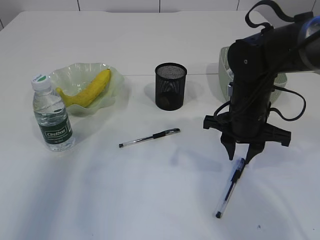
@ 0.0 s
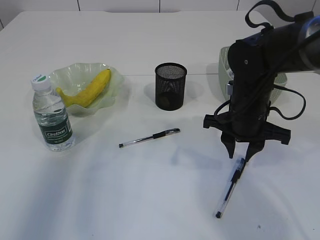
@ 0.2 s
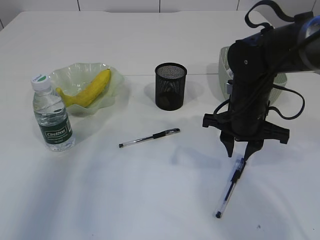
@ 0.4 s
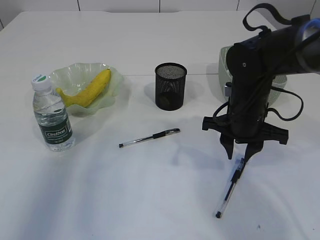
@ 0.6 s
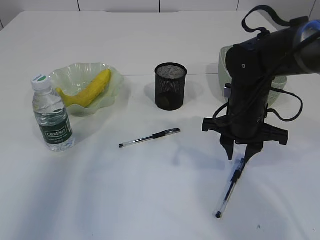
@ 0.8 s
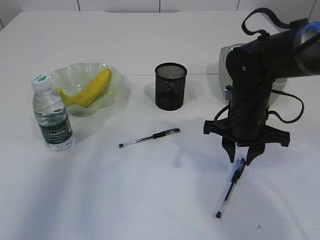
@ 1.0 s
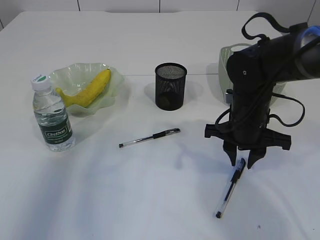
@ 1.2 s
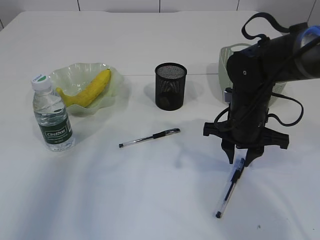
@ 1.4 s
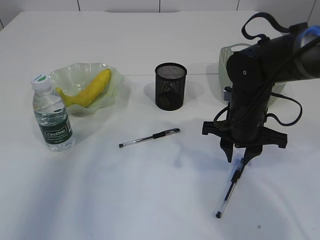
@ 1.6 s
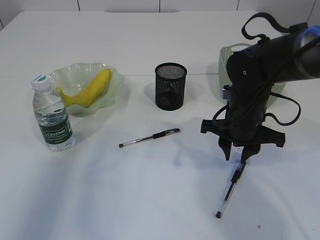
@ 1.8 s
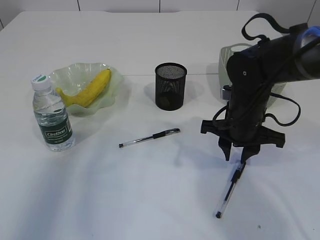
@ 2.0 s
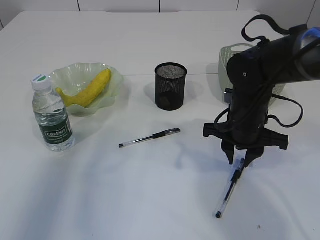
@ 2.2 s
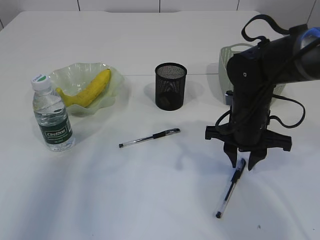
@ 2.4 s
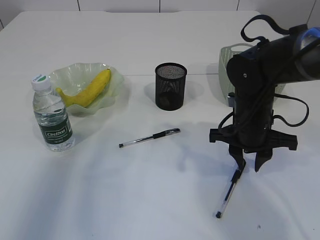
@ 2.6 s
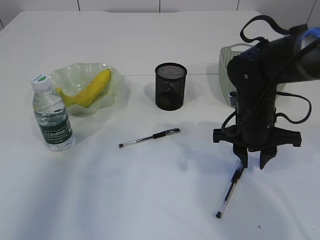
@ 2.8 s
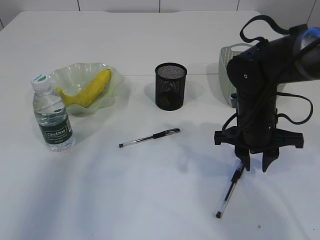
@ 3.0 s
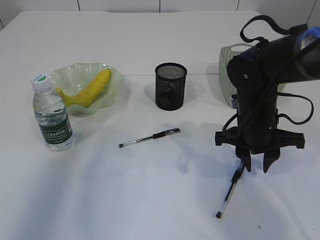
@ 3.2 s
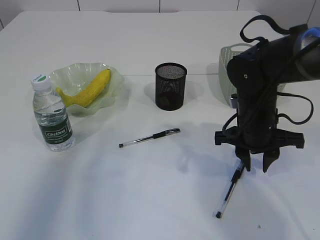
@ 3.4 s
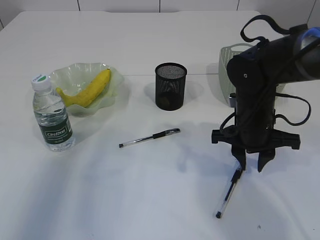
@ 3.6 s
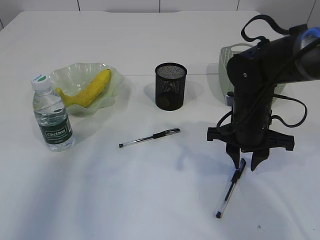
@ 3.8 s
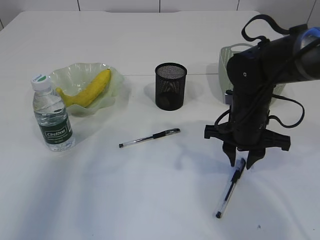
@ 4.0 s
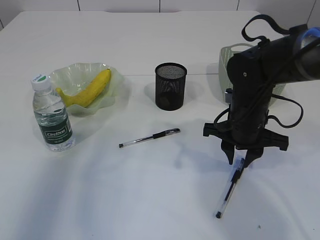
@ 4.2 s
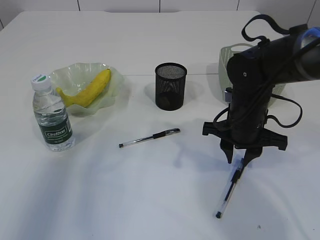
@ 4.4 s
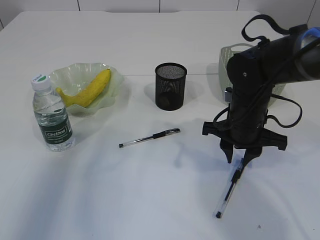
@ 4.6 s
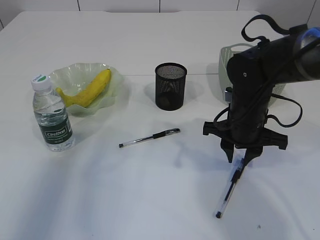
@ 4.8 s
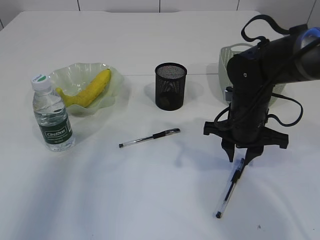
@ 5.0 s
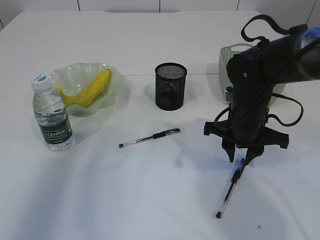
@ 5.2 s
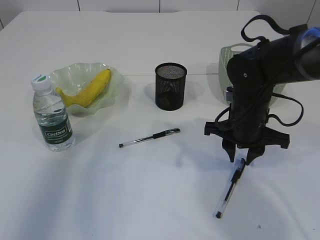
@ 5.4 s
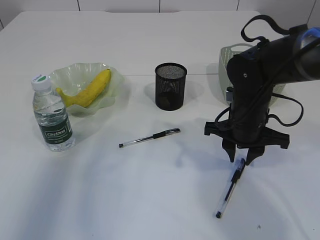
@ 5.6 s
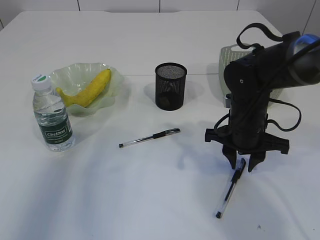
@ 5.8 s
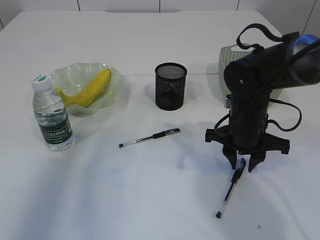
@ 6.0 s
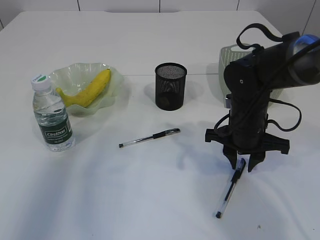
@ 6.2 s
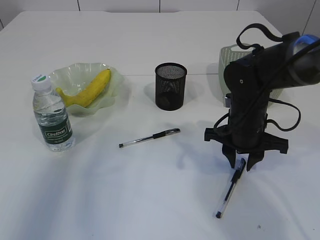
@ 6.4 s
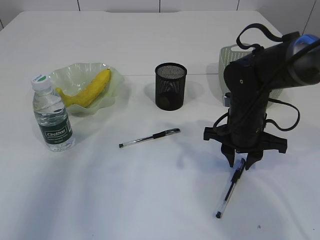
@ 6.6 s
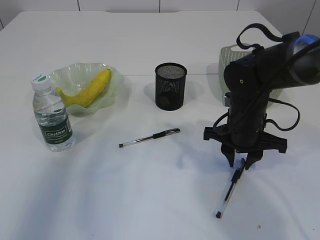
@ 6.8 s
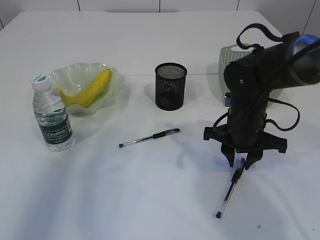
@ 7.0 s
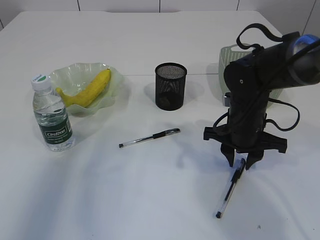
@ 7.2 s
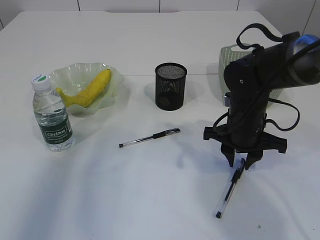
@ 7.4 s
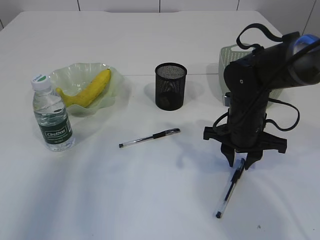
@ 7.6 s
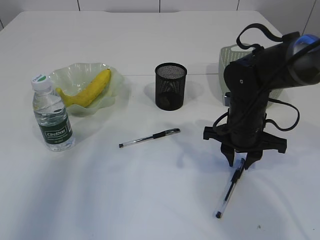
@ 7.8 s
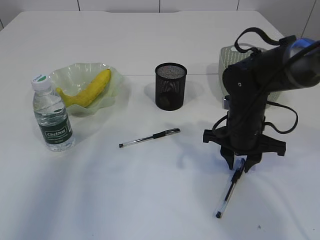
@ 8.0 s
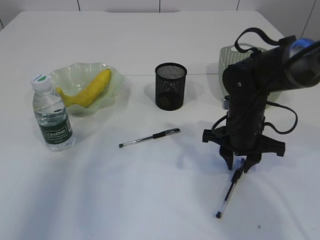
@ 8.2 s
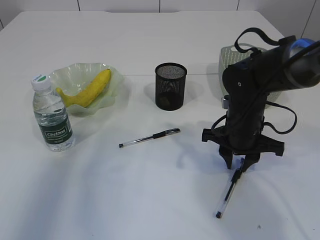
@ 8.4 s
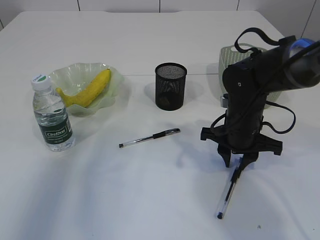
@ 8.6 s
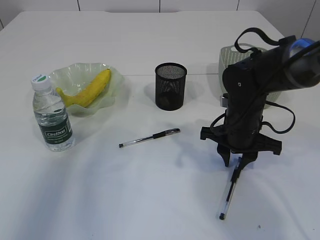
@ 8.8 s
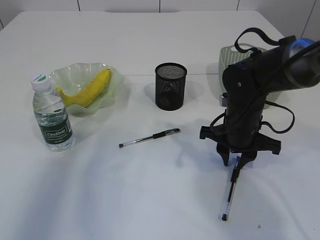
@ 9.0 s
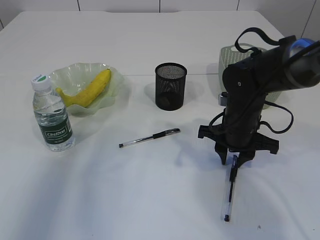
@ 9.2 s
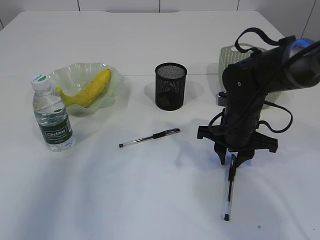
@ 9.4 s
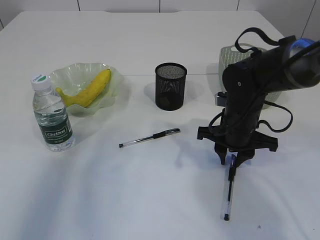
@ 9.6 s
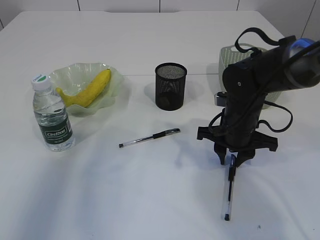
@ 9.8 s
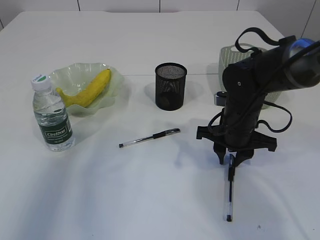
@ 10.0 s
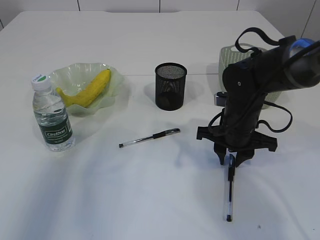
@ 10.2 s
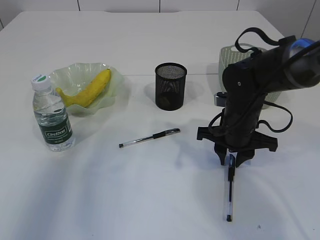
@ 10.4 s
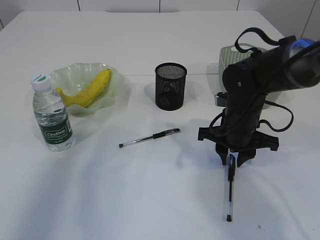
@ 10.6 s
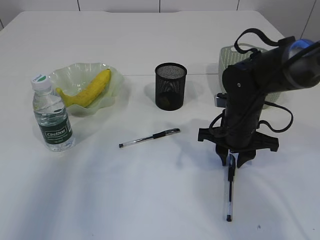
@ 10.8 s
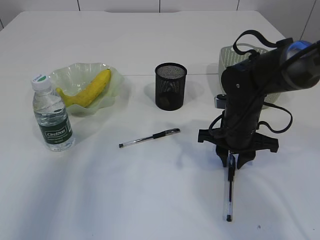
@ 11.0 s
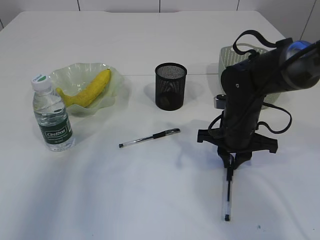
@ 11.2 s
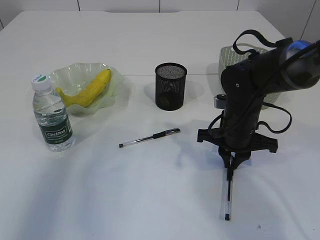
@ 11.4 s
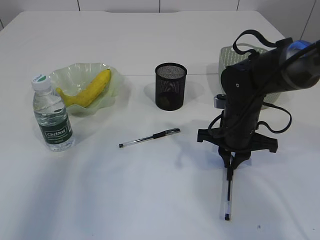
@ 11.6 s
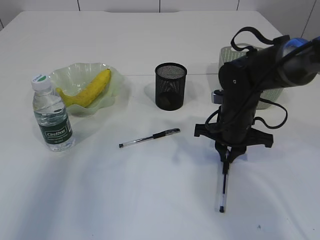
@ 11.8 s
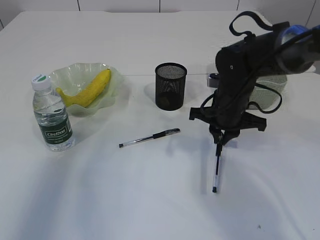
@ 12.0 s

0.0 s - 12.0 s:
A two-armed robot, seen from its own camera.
Step, 0.0 s - 12.0 s: Pick up the pen with right arm.
0.0 s - 4.4 s: There are only small adjustments of the grippers.
4.4 s - 7.6 s: Both grippers stay about where they are.
7.6 s - 9.0 s: Neither gripper changes place.
9.0 s - 12.0 s: The grippers move only a little.

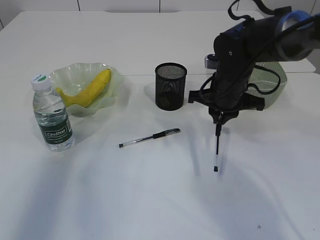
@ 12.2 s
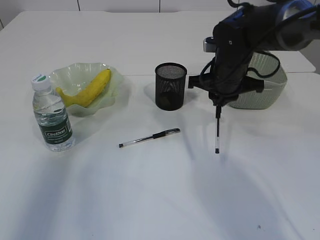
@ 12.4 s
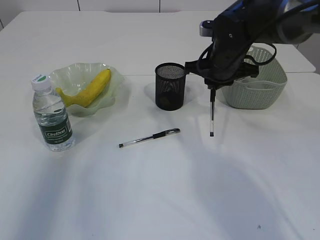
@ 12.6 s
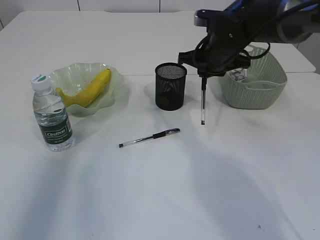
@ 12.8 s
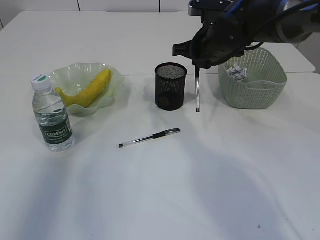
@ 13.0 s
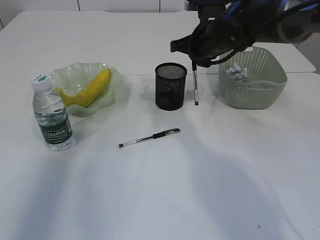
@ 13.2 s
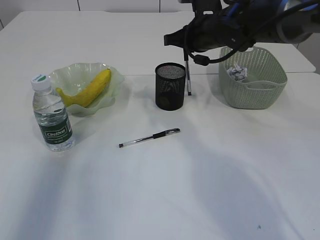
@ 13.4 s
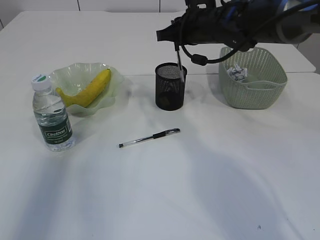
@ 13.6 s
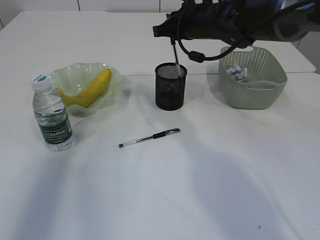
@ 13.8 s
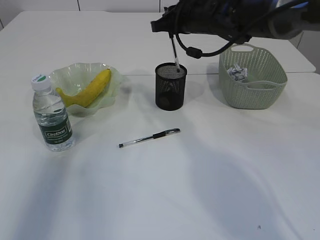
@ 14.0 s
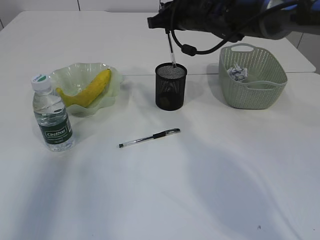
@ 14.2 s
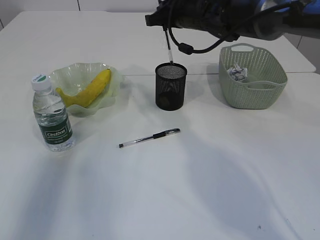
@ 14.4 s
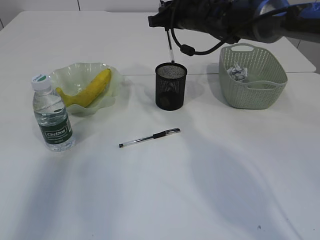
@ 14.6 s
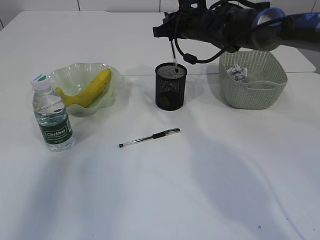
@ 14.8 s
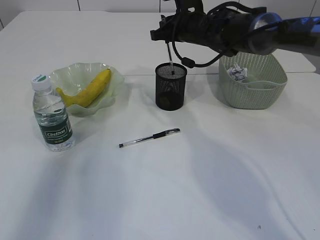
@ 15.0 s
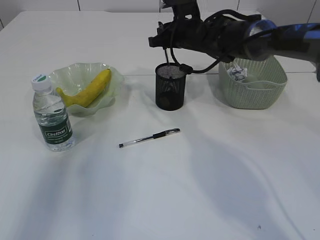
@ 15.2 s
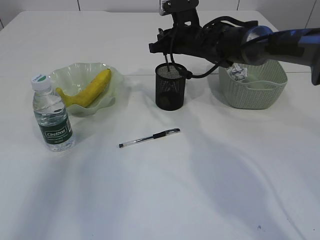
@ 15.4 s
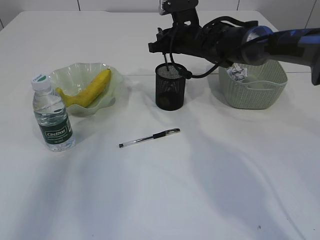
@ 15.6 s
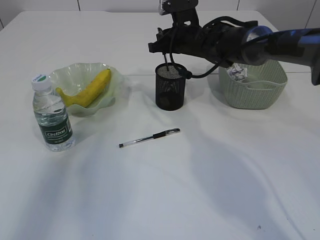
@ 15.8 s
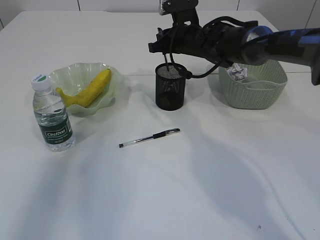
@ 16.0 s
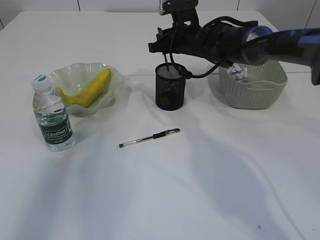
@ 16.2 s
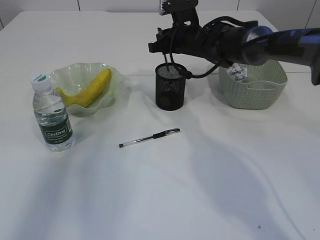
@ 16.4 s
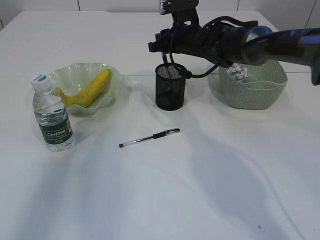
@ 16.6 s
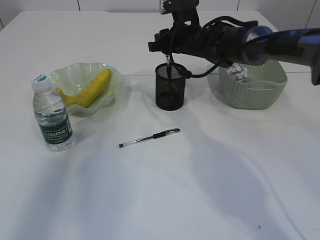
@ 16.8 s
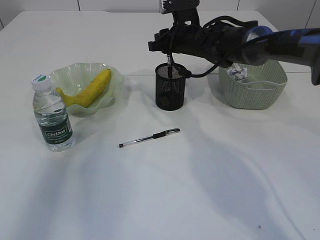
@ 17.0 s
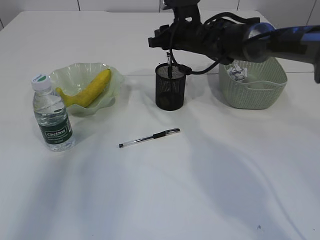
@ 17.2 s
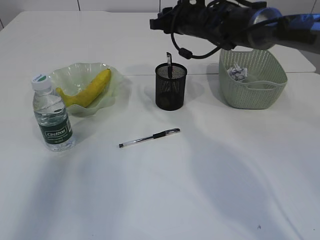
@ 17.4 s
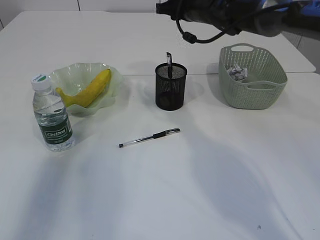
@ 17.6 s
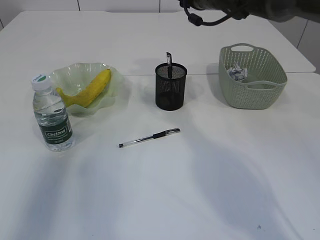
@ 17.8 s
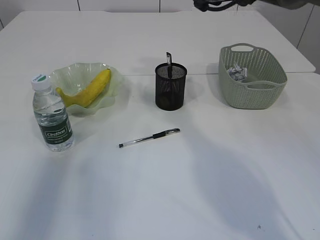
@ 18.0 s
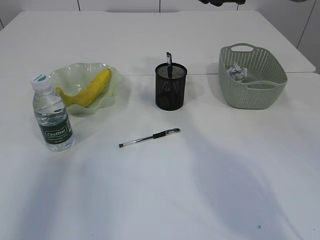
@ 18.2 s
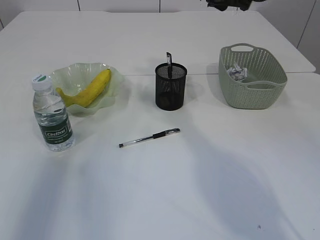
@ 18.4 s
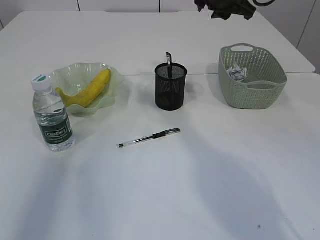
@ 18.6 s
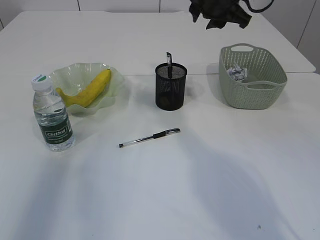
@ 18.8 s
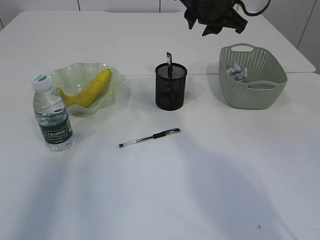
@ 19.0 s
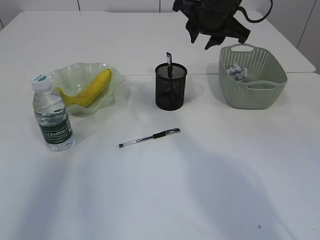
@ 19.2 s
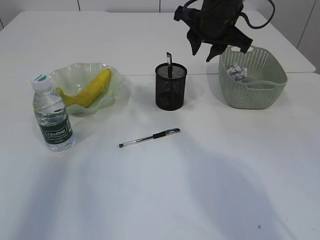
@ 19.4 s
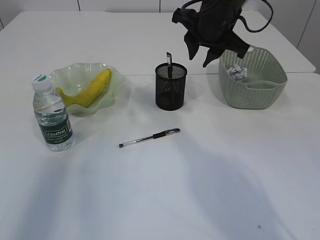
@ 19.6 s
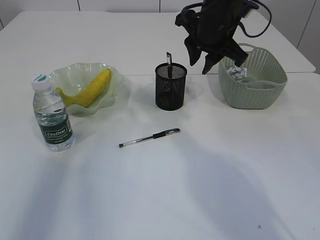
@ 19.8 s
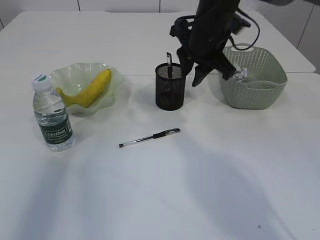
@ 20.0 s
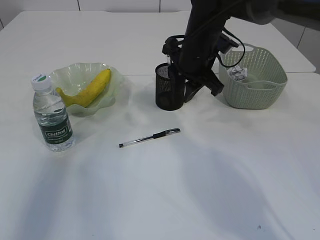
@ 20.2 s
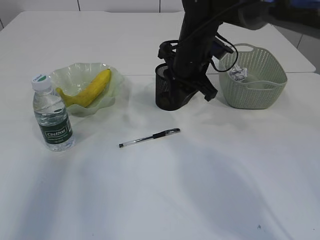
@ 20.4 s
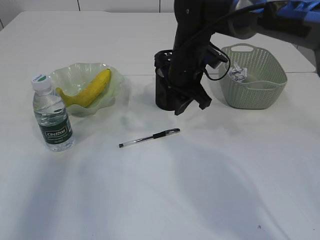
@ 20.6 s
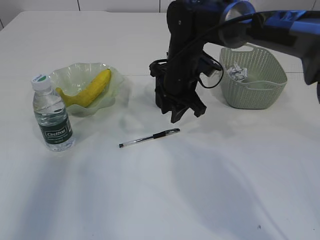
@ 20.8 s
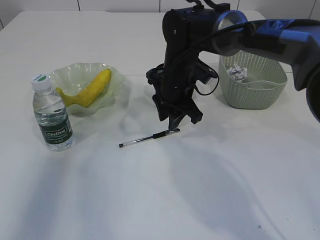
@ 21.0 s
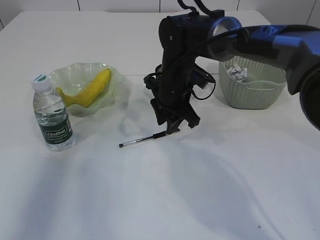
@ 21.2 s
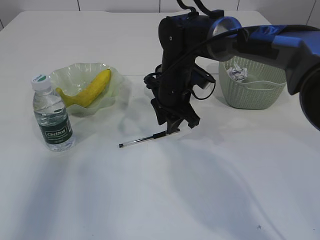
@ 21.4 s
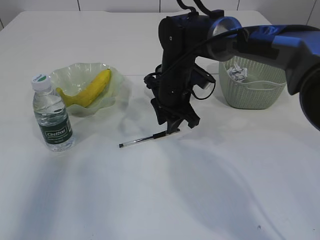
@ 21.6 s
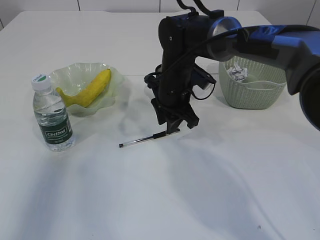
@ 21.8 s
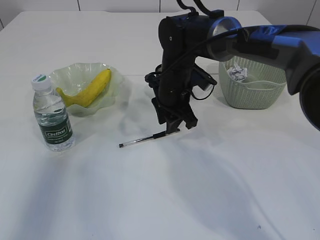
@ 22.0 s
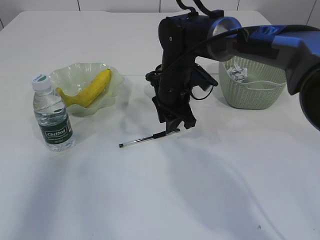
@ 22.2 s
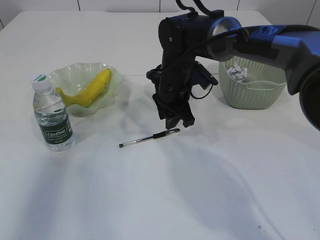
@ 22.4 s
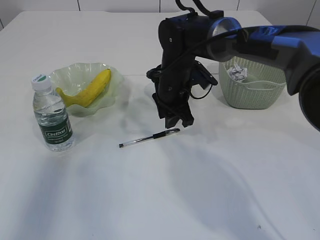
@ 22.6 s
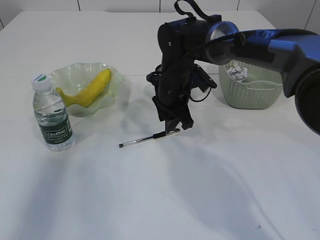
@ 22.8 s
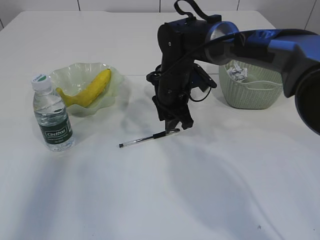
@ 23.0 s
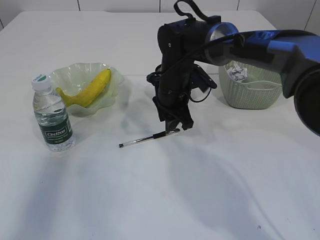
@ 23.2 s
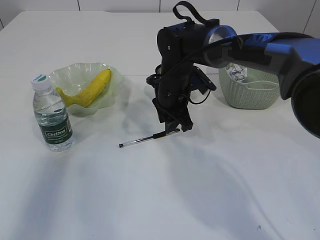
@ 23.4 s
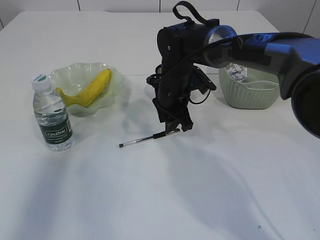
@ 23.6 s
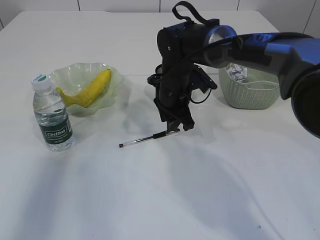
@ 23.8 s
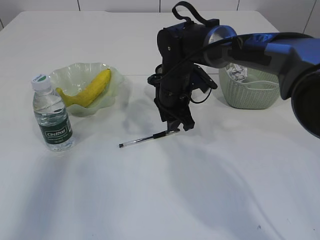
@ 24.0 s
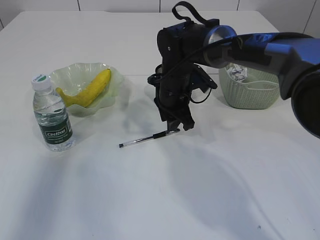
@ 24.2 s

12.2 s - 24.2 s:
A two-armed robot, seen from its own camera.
Step, 12.2 s - 17.2 s: Place the pen into the pen holder.
12.2 s - 13.8 s: The right gripper is displaced upward and forward by approximately 10 cm.
13.8 s - 15.2 s: The right gripper shifts approximately 5 cm forward and downward.
15.2 s - 16.6 s: Neither gripper changes place.
16.6 s - 18.2 s: The right gripper moves upward, some 10 cm.
18.2 s - 19.8 s: The right gripper shifts approximately 5 cm backward.
19.8 s - 21.2 s: The right gripper travels downward and to the left by some 15 cm.
21.2 s - 22.6 s: The grippers stay close to where they were, moving slightly.
22.6 s - 24.2 s: Neither gripper changes place.
